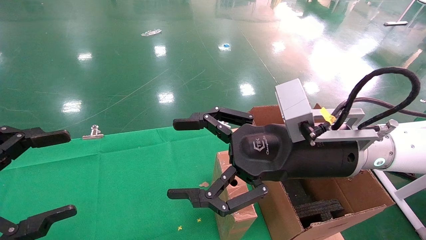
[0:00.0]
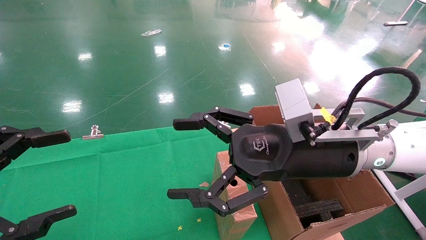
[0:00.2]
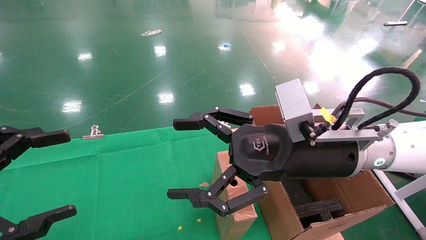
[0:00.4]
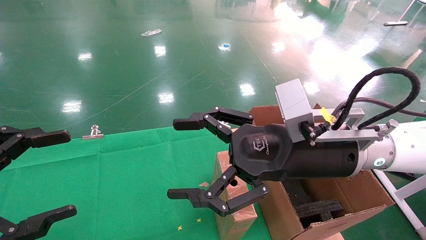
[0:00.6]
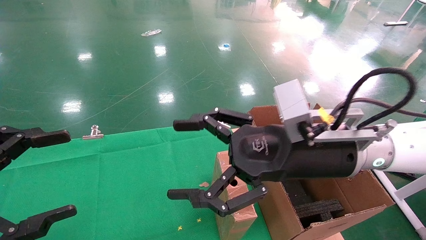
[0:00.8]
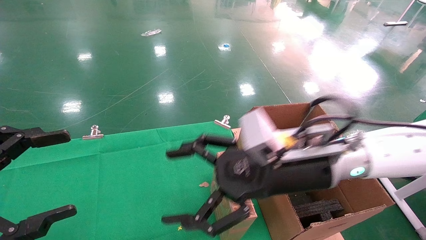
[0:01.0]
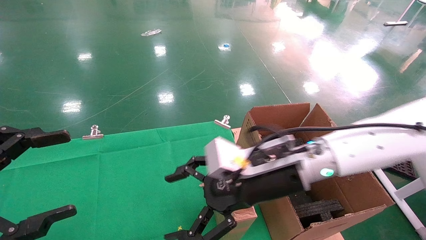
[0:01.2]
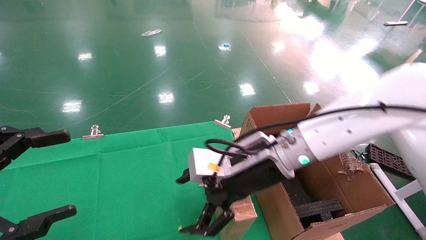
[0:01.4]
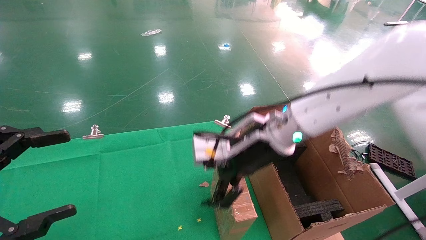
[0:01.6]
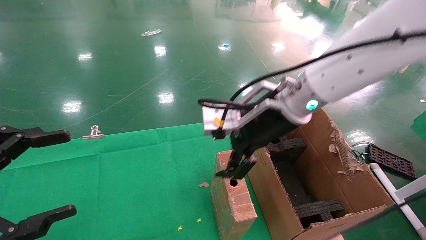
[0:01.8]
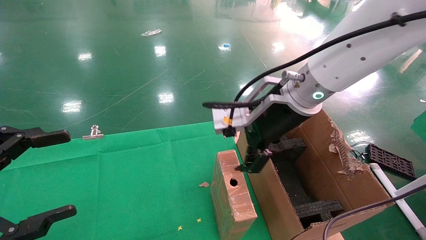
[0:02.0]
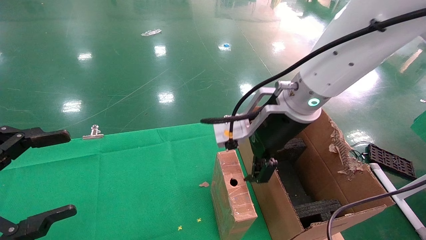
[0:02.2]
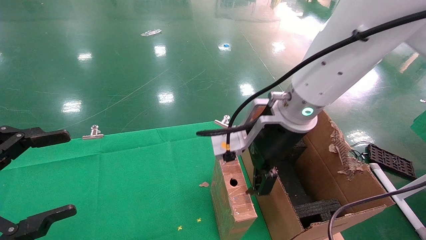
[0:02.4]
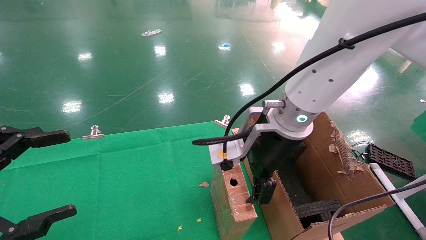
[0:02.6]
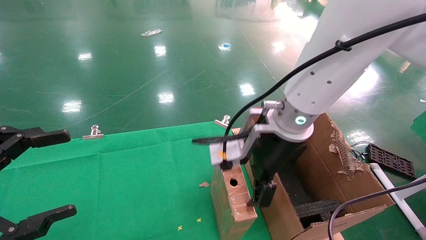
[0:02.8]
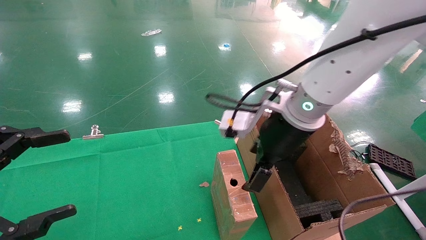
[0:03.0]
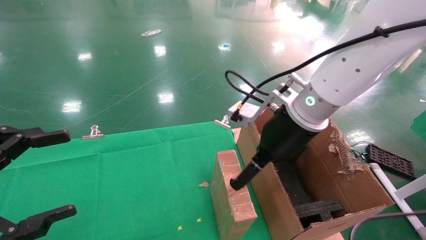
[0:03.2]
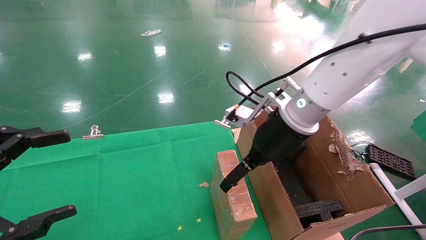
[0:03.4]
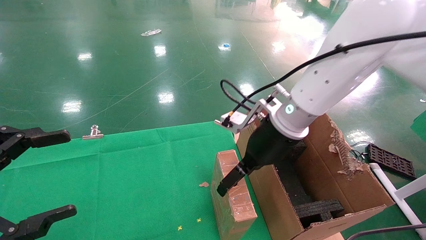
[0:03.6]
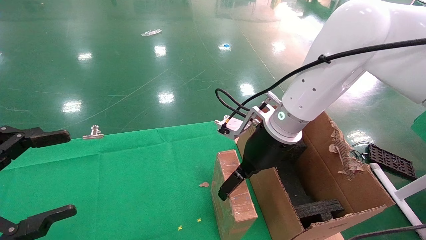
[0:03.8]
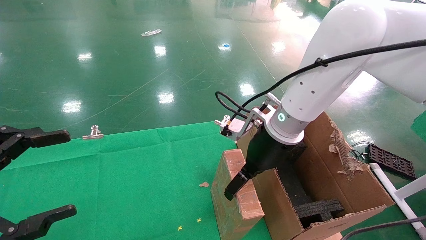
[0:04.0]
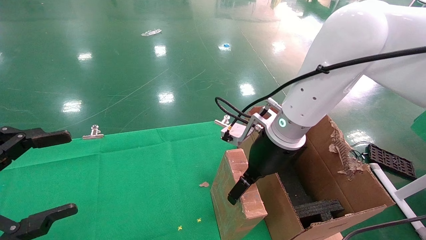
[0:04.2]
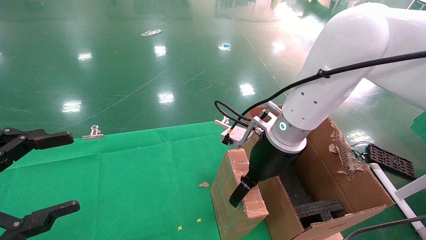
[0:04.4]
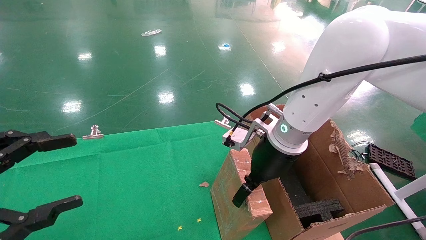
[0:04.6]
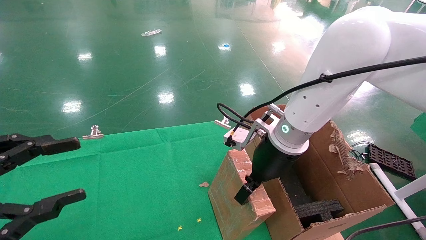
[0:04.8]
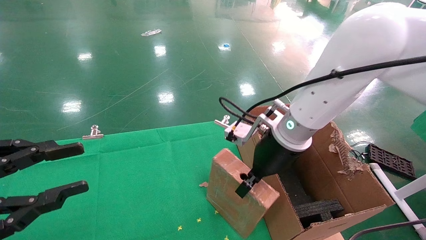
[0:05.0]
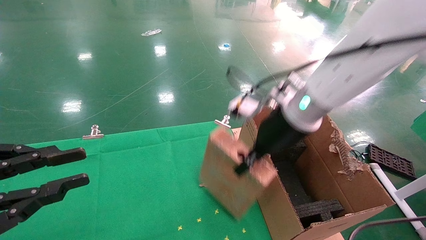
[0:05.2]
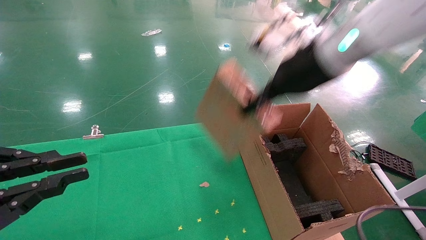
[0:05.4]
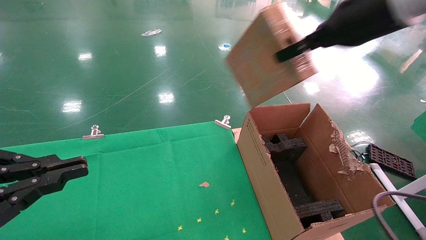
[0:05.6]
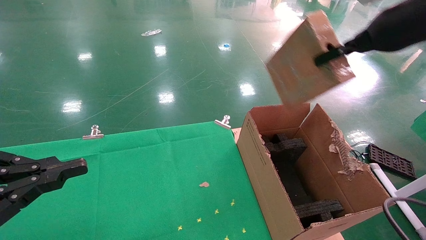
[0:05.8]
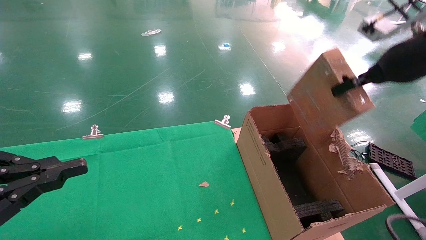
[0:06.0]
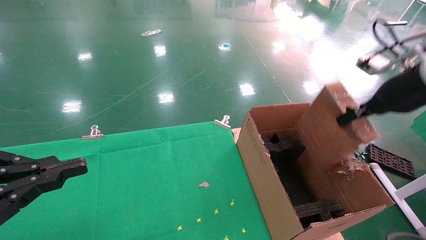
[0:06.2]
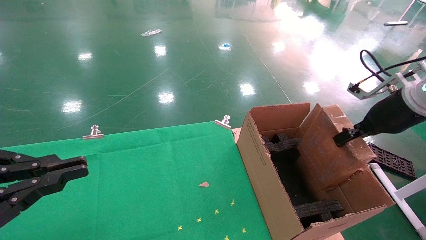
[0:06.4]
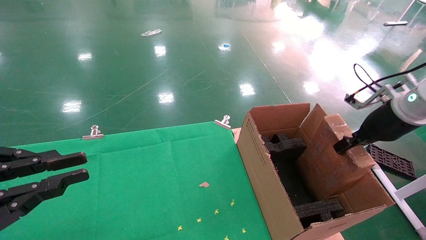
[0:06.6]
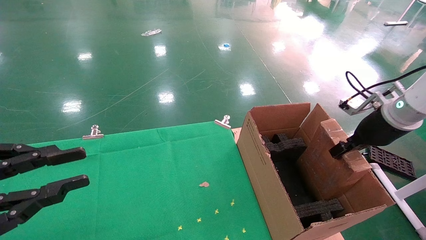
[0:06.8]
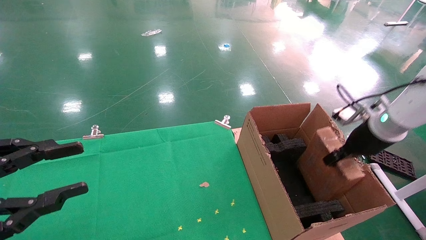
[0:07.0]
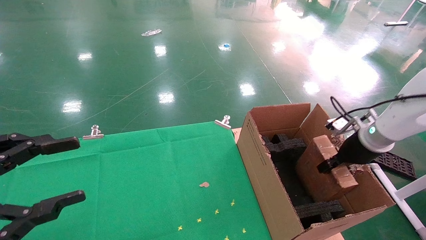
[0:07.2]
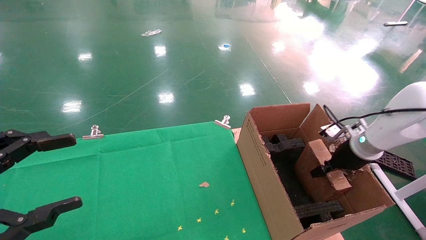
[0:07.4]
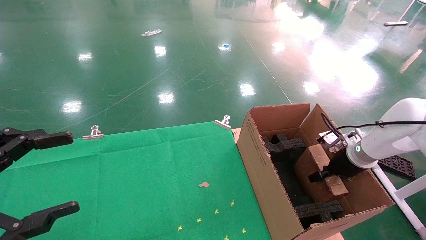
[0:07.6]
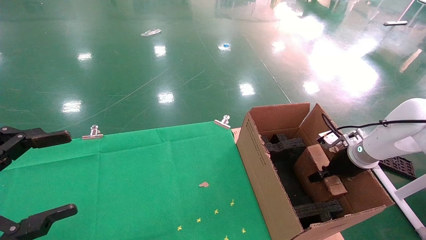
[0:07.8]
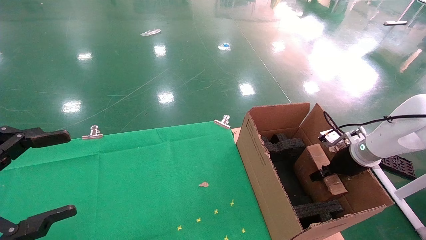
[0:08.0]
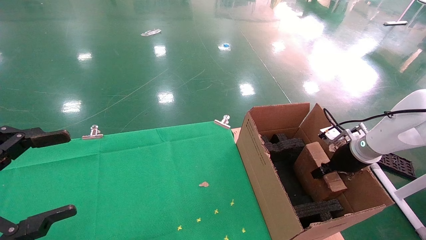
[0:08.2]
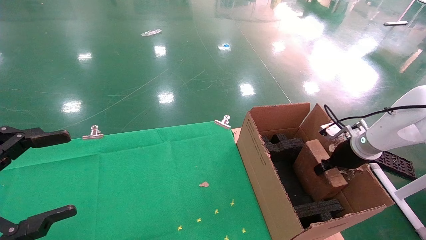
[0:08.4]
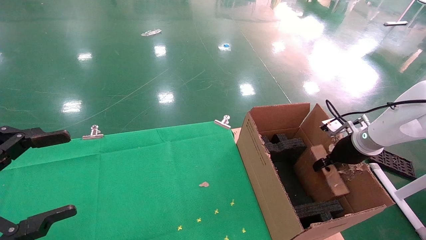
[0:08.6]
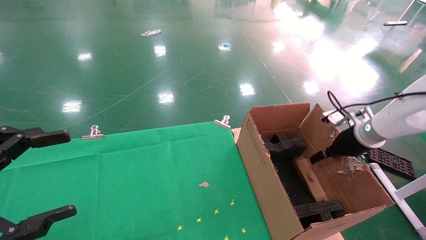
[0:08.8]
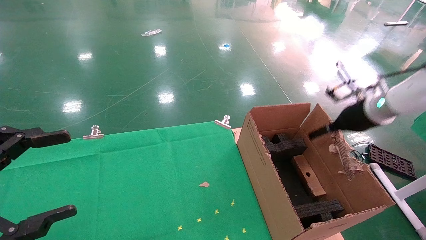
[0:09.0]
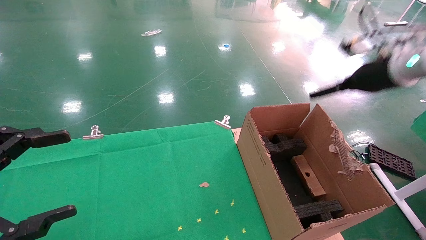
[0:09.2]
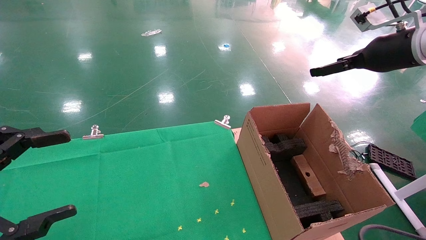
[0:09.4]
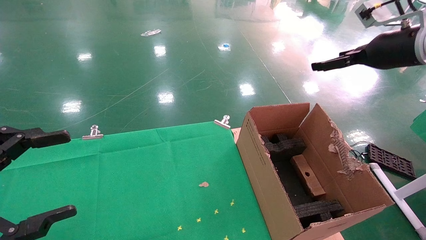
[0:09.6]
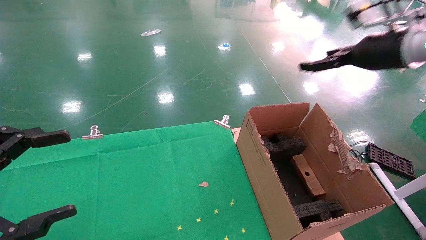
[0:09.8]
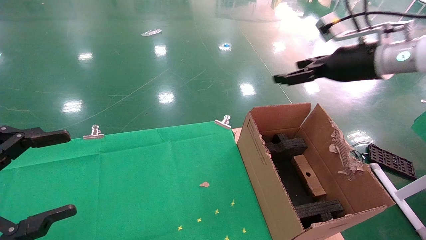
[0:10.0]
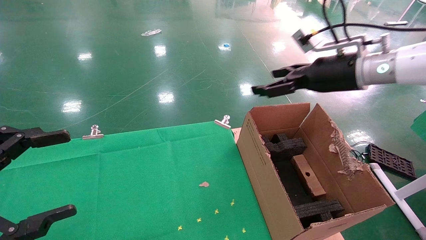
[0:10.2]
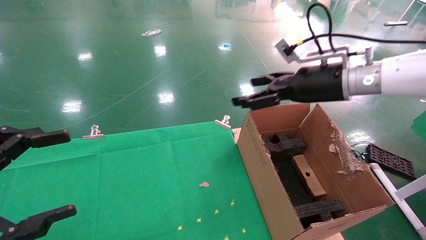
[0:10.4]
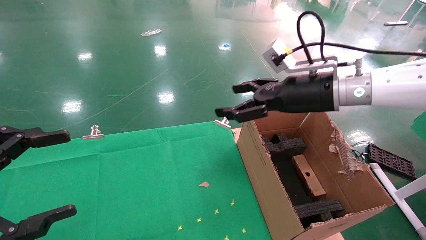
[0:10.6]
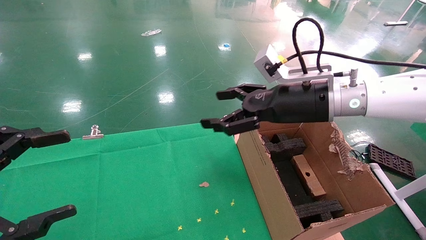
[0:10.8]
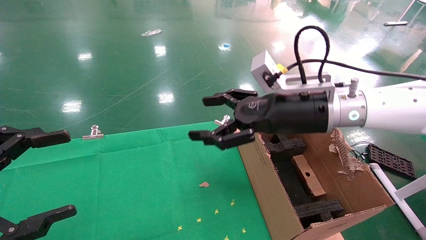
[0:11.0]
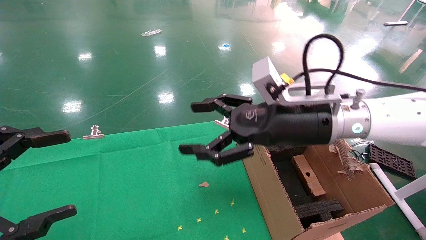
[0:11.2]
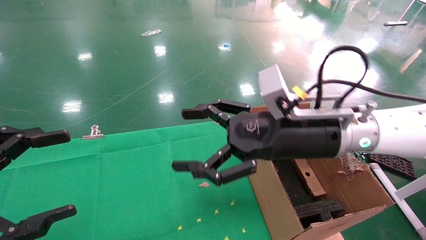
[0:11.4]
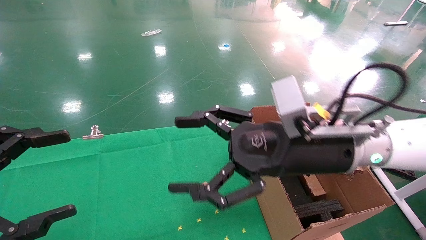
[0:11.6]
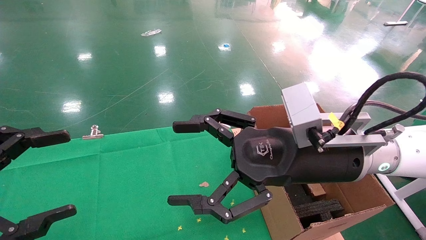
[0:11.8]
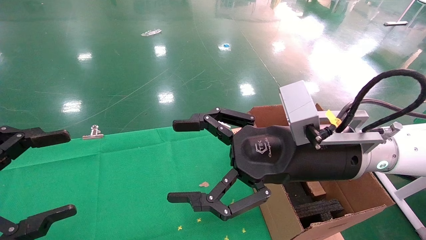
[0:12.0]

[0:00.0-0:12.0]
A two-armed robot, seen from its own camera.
Task of the whole recording: using a robotic arm to pick up a cardboard box and palace it the carton.
Step, 0:01.2 to 0:05.0: Pick up the mouse and the power cord paper box.
Step, 0:05.2 to 0:09.0: Place the mouse and the power cord paper box into the container.
0:00.0 to 0:01.6: The right gripper goes about 10 cm forward.
0:03.0 to 0:04.4: The right gripper moves some 5 cm.
0:04.4 to 0:06.0: The left gripper closes, while the right gripper travels to the right and upward by about 25 cm, and closes up.
0:06.0 to 0:07.6: The left gripper opens its fingers; the right gripper moves downward, about 25 cm.
0:07.6 to 0:09.0: The right gripper moves upward, about 15 cm, and opens its fingers.
0:09.0 to 0:10.4: The right gripper shifts roughly 15 cm to the left.
0:10.4 to 0:12.0: The right gripper moves backward, to the left and downward, roughly 15 cm.

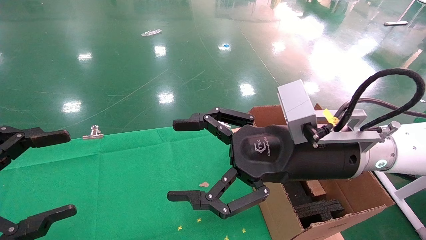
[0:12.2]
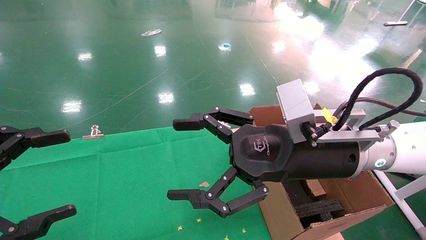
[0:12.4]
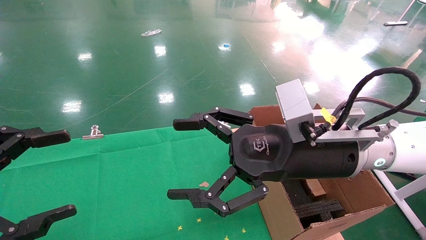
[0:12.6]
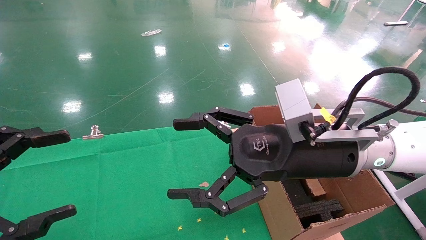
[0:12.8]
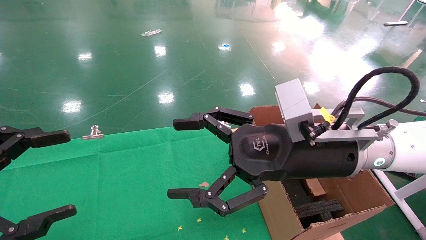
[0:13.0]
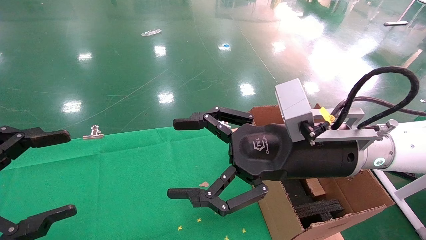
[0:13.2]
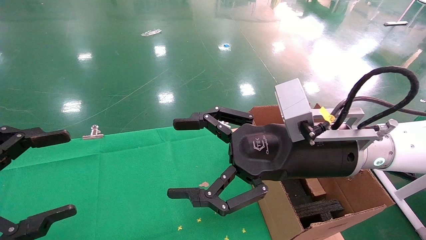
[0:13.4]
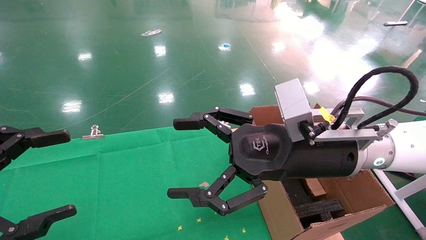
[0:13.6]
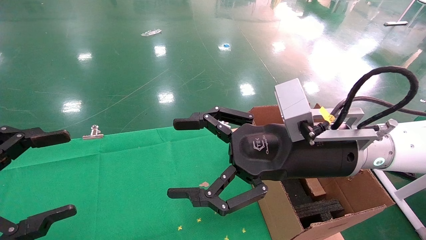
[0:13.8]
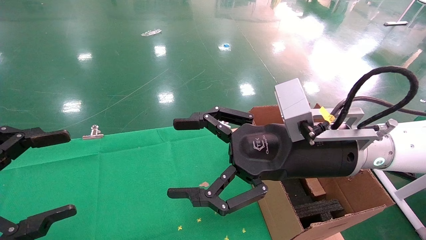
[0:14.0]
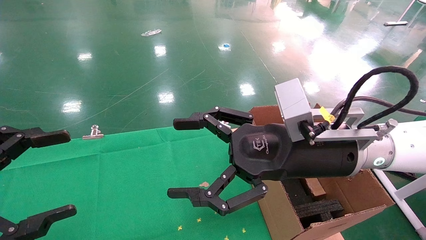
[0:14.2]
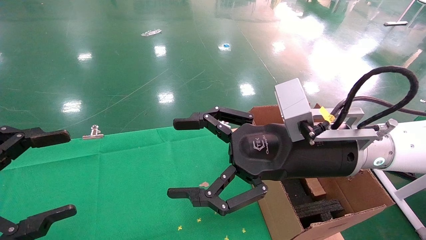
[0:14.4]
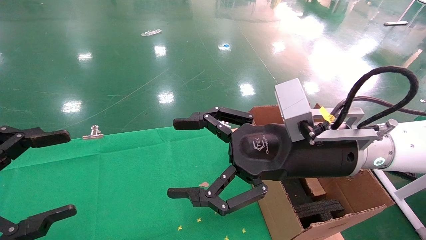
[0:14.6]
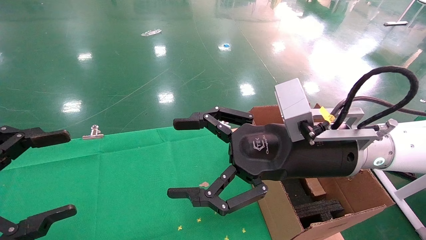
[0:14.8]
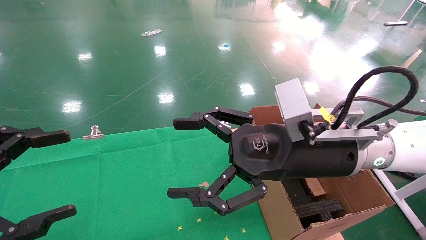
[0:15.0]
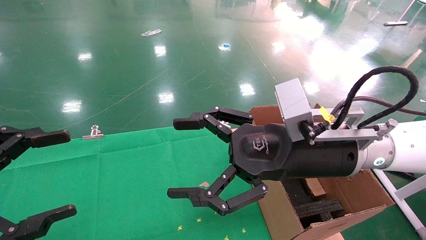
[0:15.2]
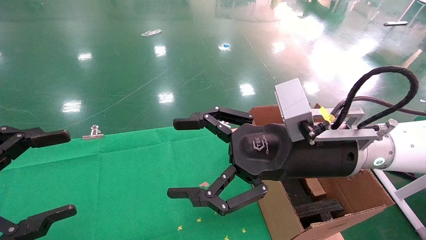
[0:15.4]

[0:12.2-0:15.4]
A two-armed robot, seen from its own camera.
Task of the whole recording: using a robotic arm to pick up a cardboard box and palace it the carton.
0:12.2 to 0:15.4: The two grippers keep their place.
